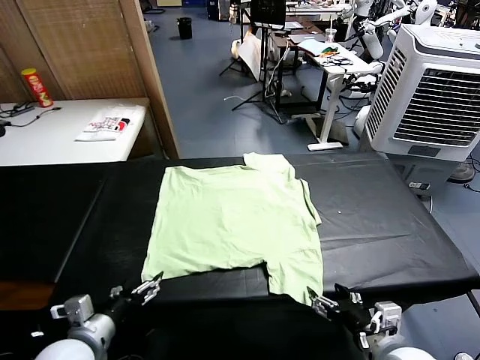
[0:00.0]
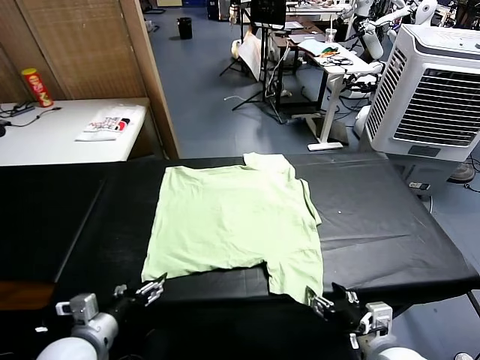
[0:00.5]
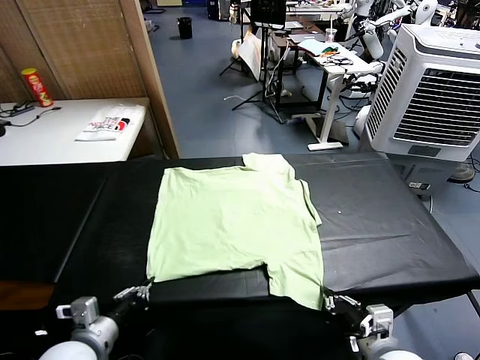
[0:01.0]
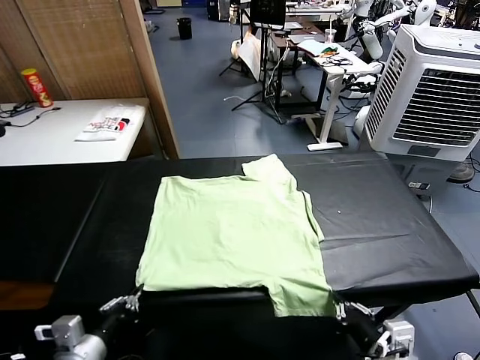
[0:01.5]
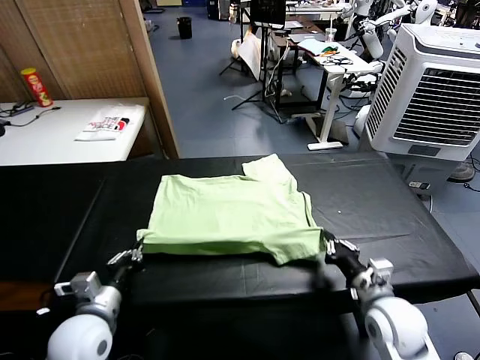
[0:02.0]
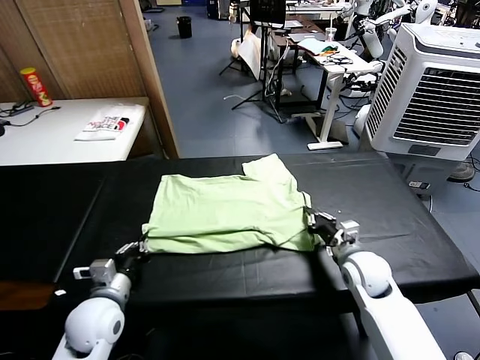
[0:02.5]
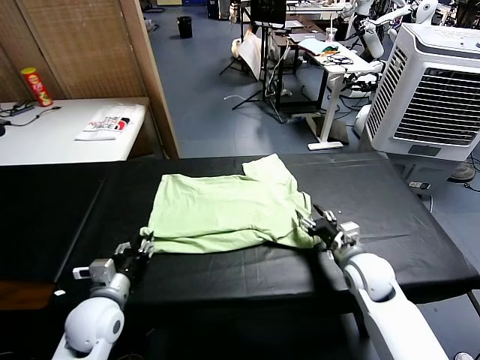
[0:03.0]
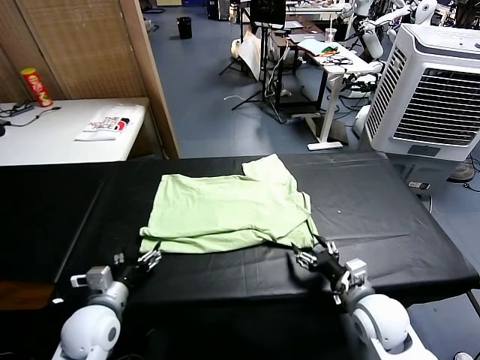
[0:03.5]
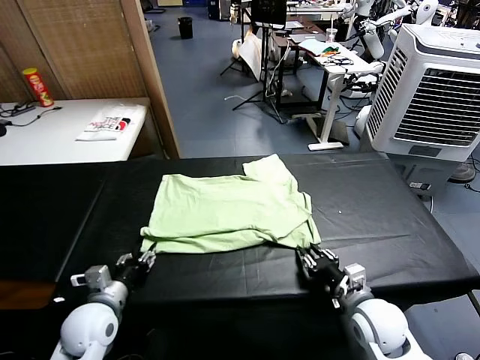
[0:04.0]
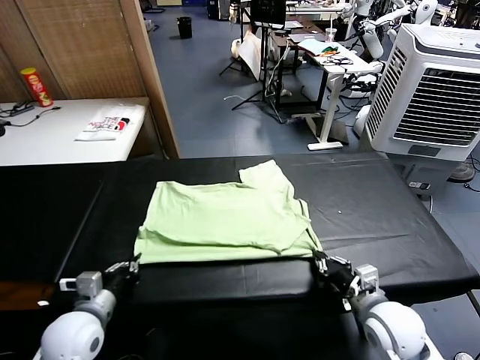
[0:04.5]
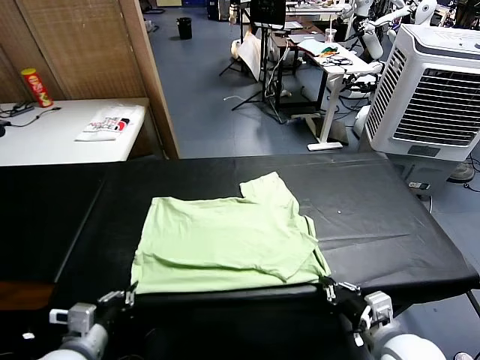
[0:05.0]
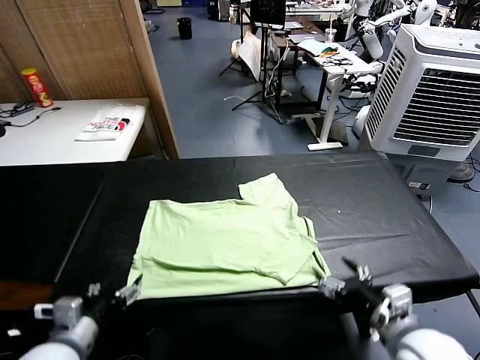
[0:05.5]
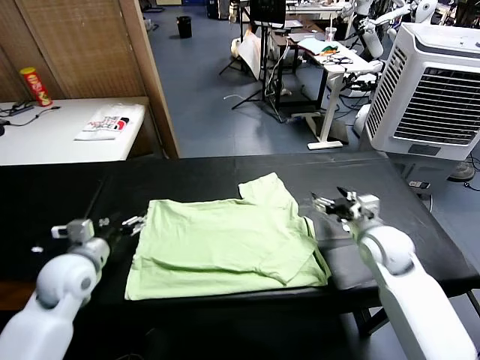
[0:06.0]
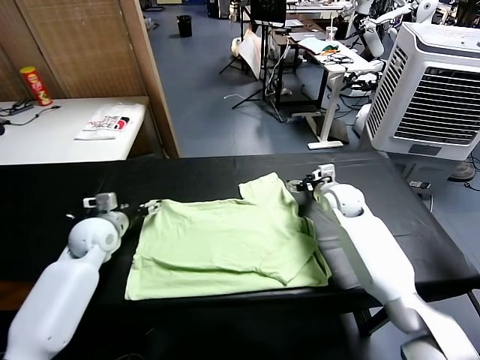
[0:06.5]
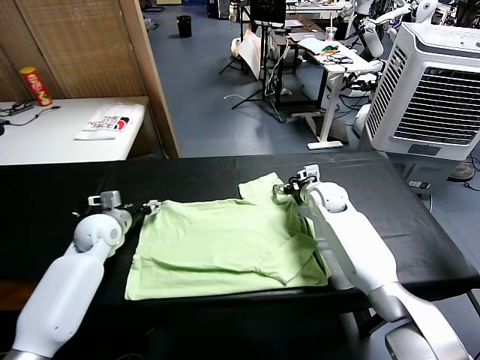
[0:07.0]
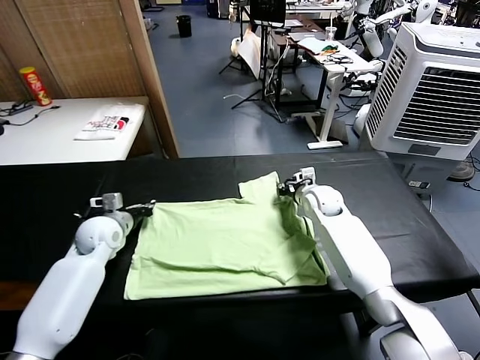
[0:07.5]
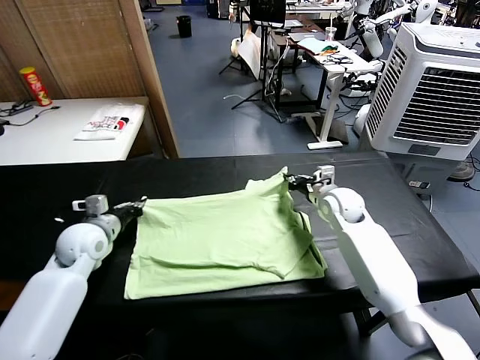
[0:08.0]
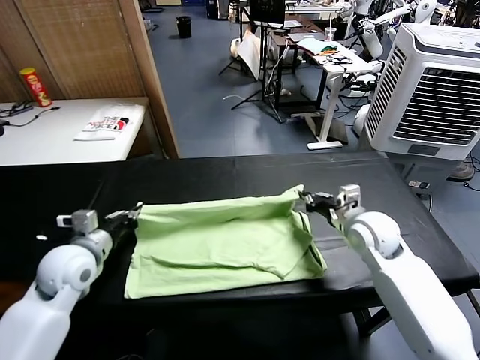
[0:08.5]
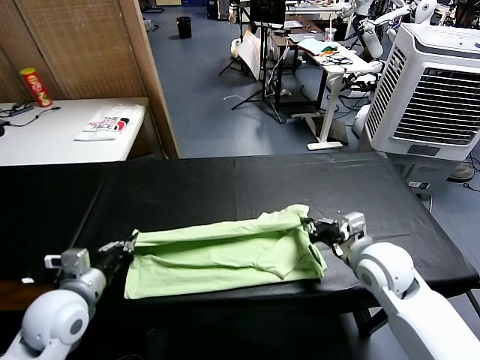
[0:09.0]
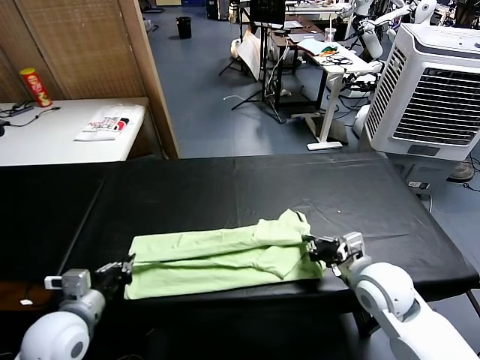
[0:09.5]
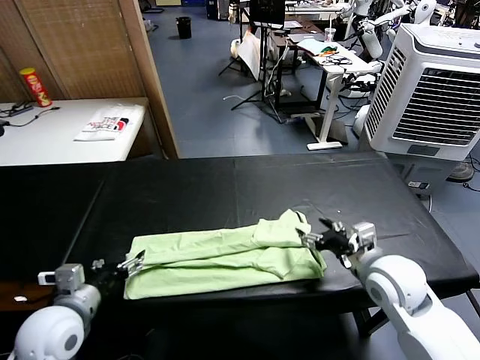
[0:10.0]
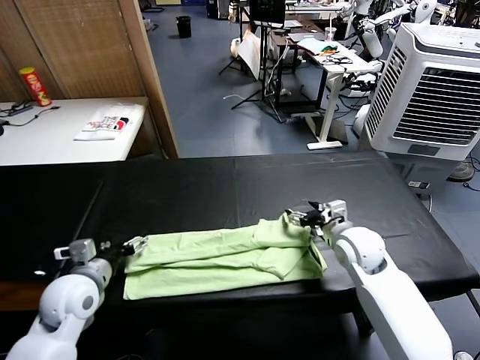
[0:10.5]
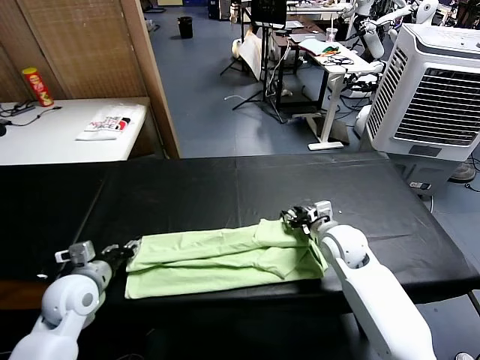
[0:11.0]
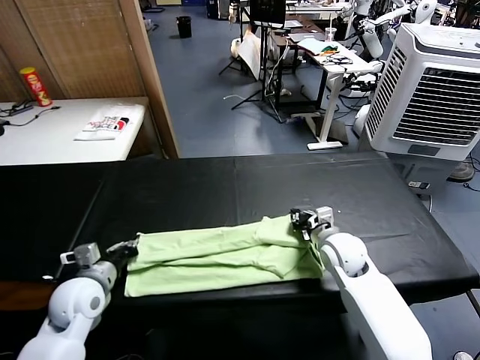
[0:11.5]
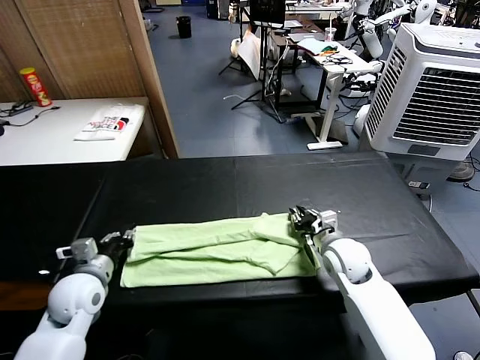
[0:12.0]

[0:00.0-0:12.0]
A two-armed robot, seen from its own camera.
Task of the whole recording: fold and organize the clothes.
Step, 0:00.0 to 0:01.0: use both grippers simultaneously to clamp the lower edge of the clothing fabric.
Step, 0:01.5 to 0:03.0: use both grippers to drag the lower edge of the fabric forward and fold it over the upper edge.
Step, 0:03.5 to 0:05.0: Drag the clothes downward with both gripper.
Step, 0:05.5 to 0:07.0: use both grippers simultaneously to clamp the upper edge of the clothing fabric.
Step, 0:07.5 to 0:09.5: use both grippers to drag the upper edge of the fabric backward and fold it over the lower edge.
0:02.0 to 0:04.0: The right gripper reaches some 10 cm forward, then returns, and opens, then closes again. Meanwhile the left gripper changes place by some 5 cm, and opens its fingers.
0:04.0 to 0:06.0: The left gripper travels upward and forward by about 10 cm, and opens; the right gripper goes approximately 20 cm forward, and opens up.
0:06.0 to 0:08.0: The right gripper closes, while the left gripper heads forward, covering some 10 cm, and closes.
0:08.0 to 0:10.0: The grippers both shift backward by some 20 cm. The left gripper opens. The right gripper opens up.
0:10.0 to 0:12.0: The left gripper shifts approximately 10 cm forward, and closes its fingers, while the right gripper moves downward and forward, some 10 cm, and closes up.

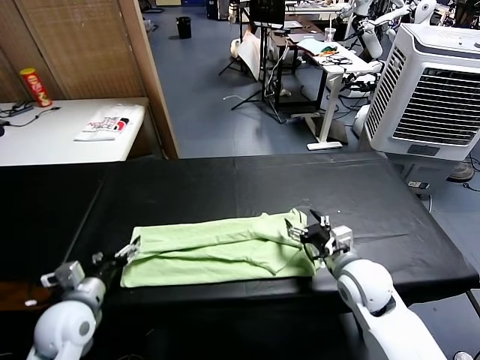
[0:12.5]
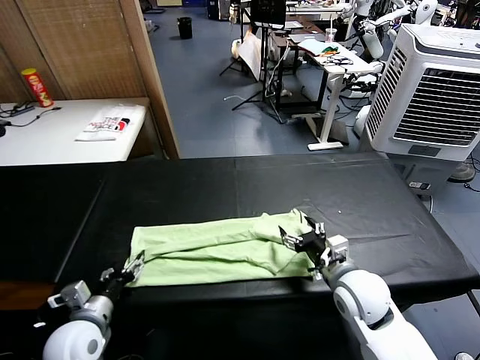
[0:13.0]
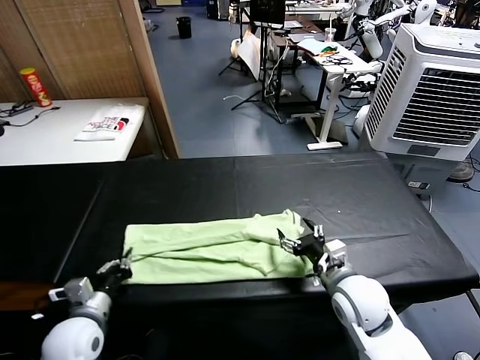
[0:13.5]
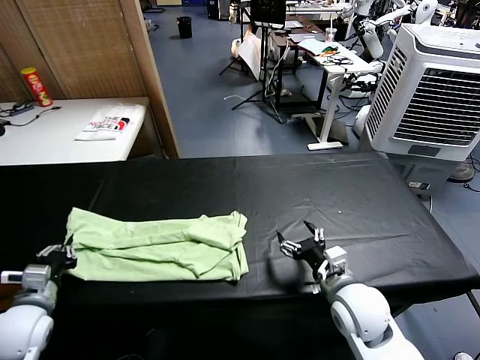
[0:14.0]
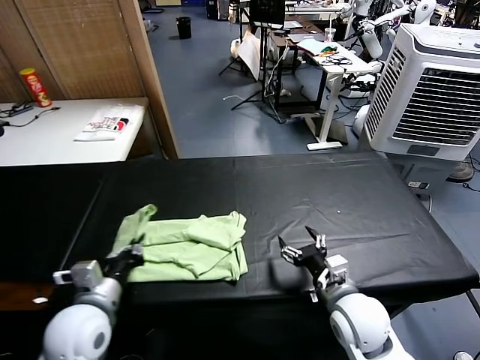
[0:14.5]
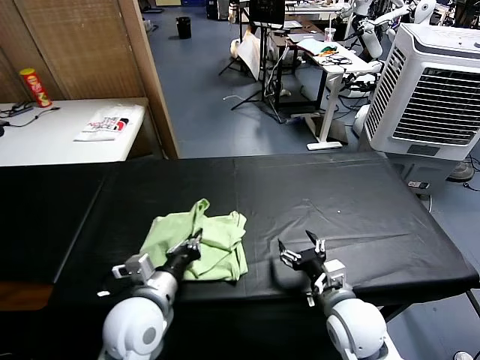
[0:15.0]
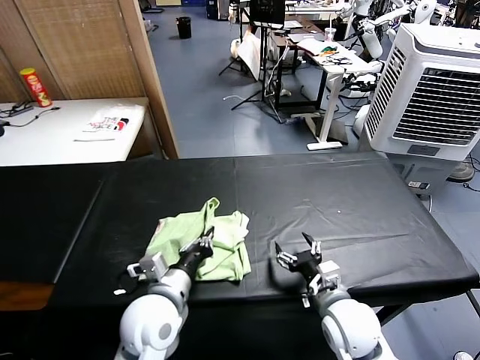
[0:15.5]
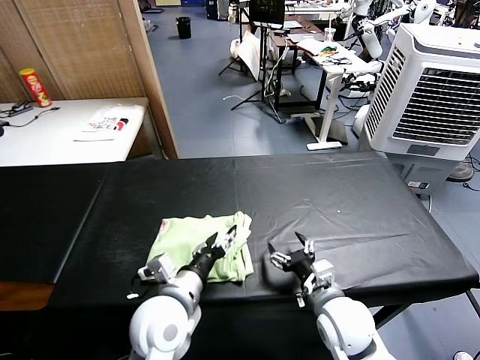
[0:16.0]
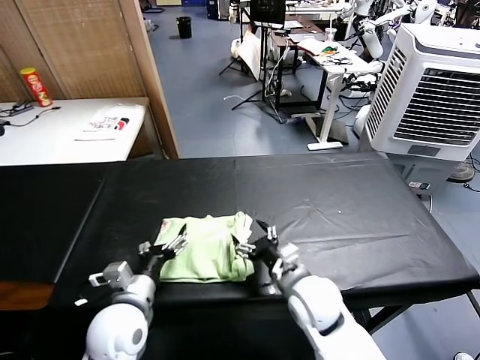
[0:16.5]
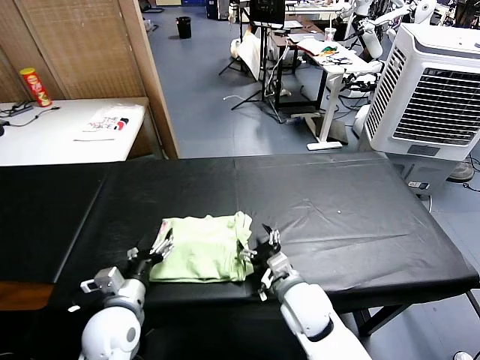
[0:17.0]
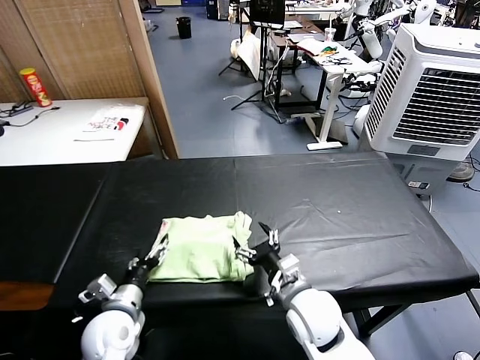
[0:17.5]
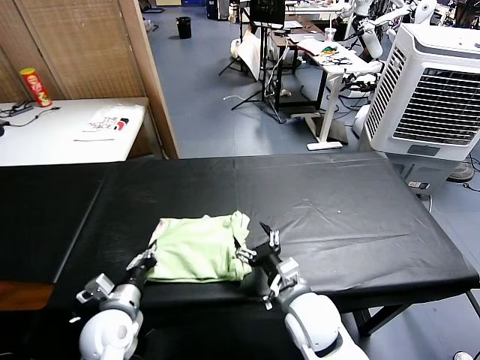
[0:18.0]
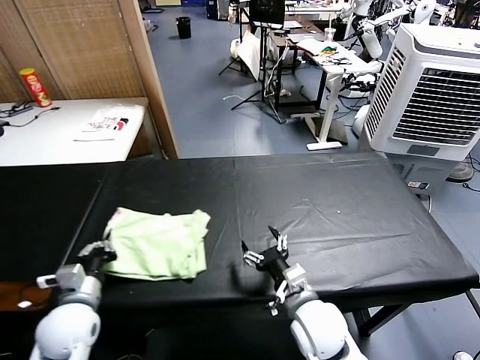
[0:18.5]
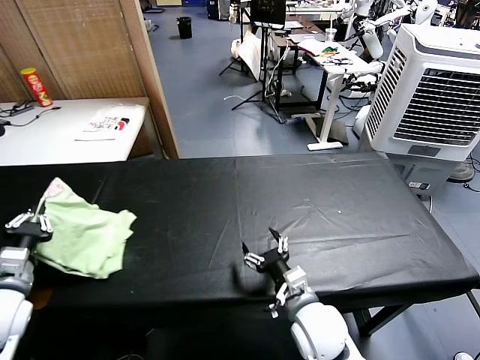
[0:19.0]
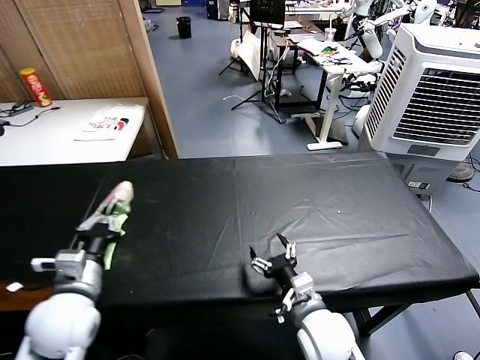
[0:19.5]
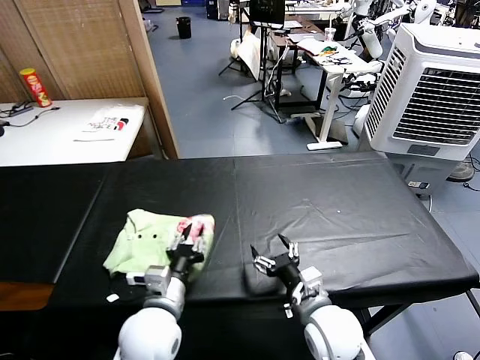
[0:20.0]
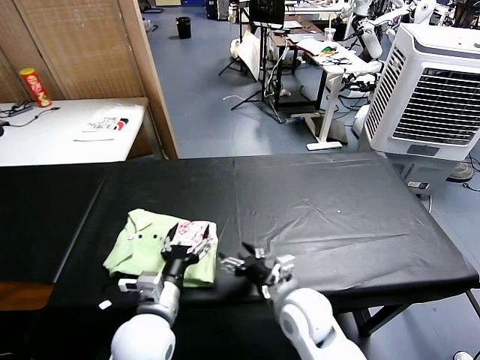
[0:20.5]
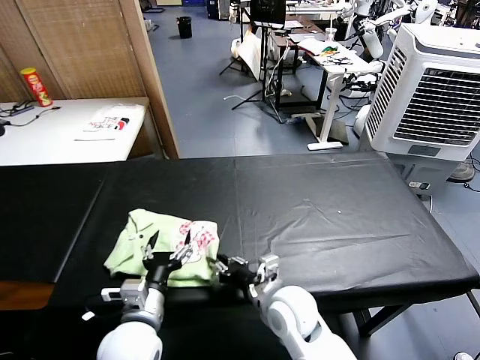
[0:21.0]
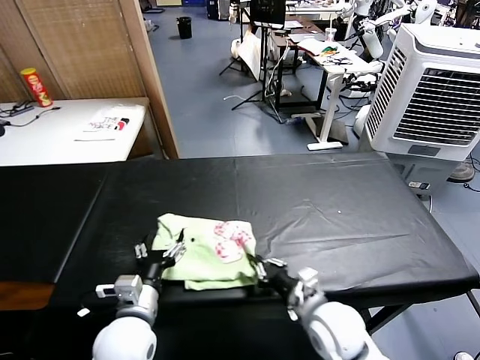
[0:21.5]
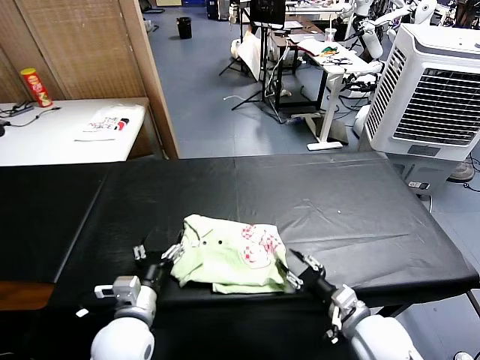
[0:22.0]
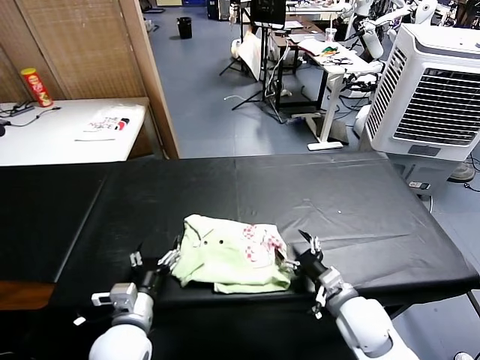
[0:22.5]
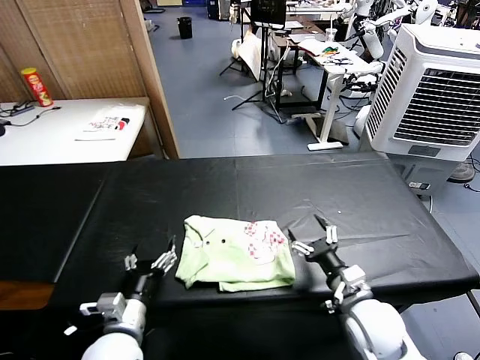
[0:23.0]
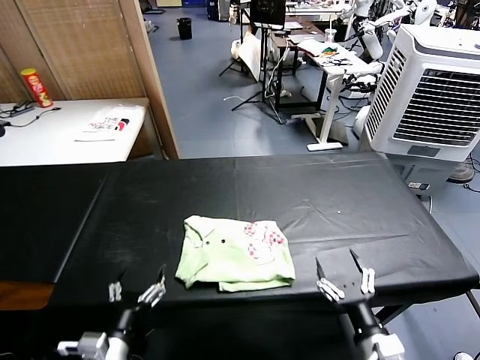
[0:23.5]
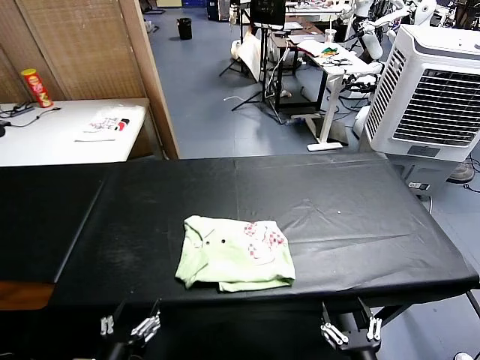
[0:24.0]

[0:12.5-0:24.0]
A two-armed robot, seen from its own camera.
Task of the whole recording: fold and organize the clothes.
Step, 0:13.5 to 0:15.5: use the left gripper to drag the left edge of the fabric to the left and folds it over the right edge.
Step, 0:16.5 to 0:20.0: Flip the folded clothes over with left gripper.
Step, 0:20.5 to 0:22.5: Drag the clothes to the center of the table.
0:12.5 to 0:14.5: The left gripper goes about 5 cm to the right, and closes. The right gripper travels backward by approximately 5 cm.
0:14.5 to 0:16.5: The right gripper goes roughly 10 cm to the left; the left gripper goes some 5 cm to the right, and opens up.
0:16.5 to 0:18.5: The left gripper moves to the left, about 10 cm, and closes up.
0:18.5 to 0:20.0: The left gripper shifts some 15 cm to the right.
0:20.0 to 0:22.0: The left gripper moves some 5 cm, and opens, while the right gripper goes approximately 10 cm to the right, and closes.
0:22.0 to 0:24.0: The grippers both shift backward by about 15 cm. The right gripper opens up.
